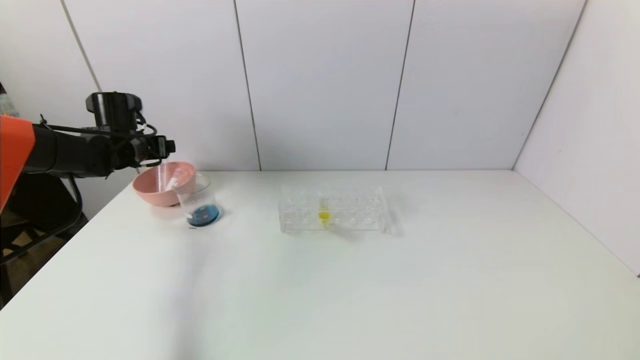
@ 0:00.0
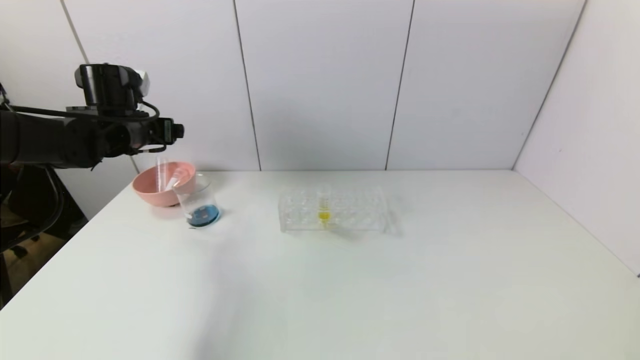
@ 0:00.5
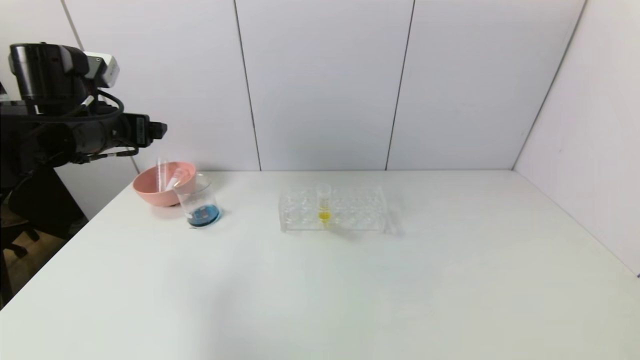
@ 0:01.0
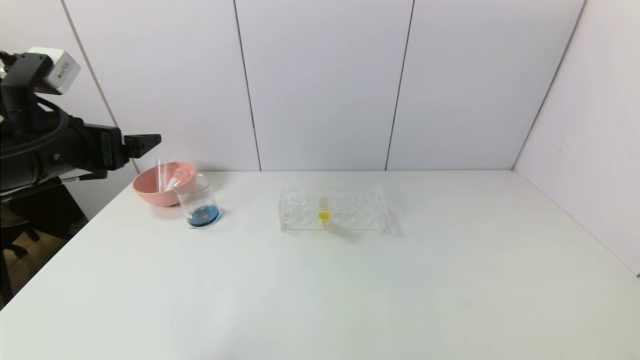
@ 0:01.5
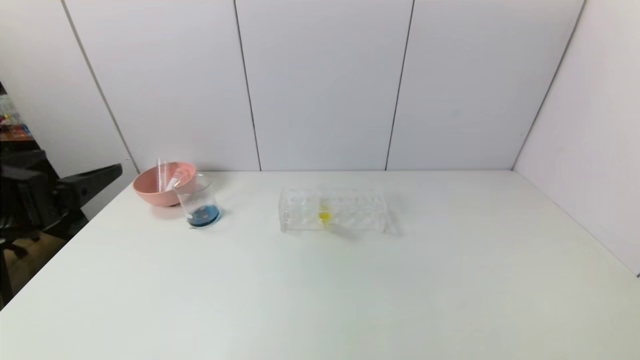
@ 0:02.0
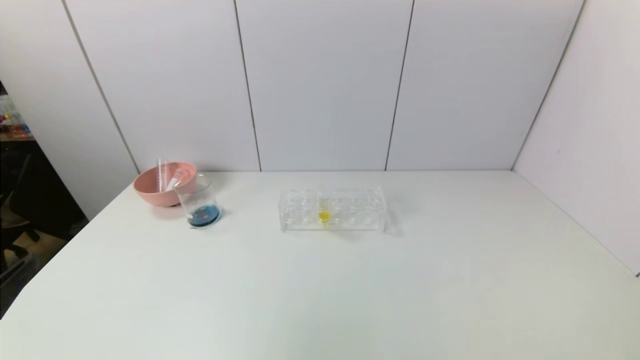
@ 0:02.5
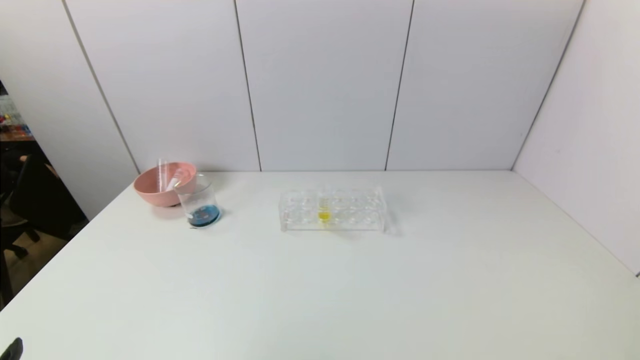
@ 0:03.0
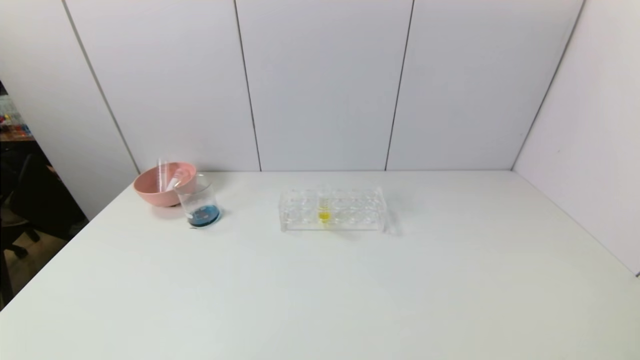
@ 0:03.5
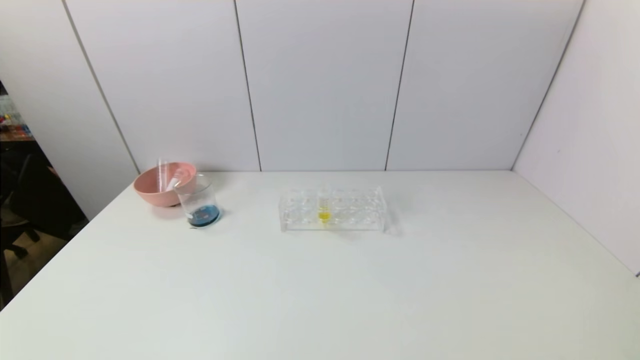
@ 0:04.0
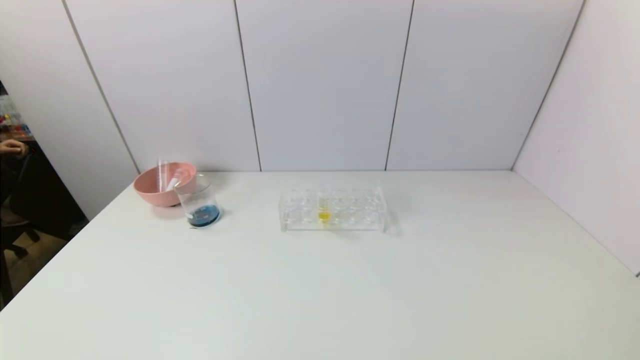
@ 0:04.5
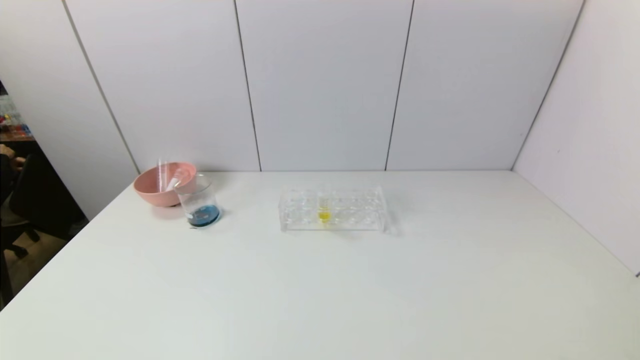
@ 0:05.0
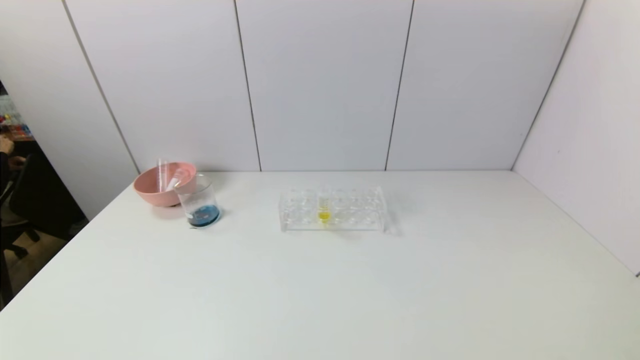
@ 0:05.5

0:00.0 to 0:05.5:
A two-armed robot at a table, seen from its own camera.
Task of the whole recording: pick up the test tube with red pigment and the test tube with blue pigment by grippers and pour them into the container.
0:00.0 to 0:02.0: The left gripper moves backward, some 30 cm.
0:02.0 to 0:03.5: The left gripper travels downward and backward by about 25 cm.
